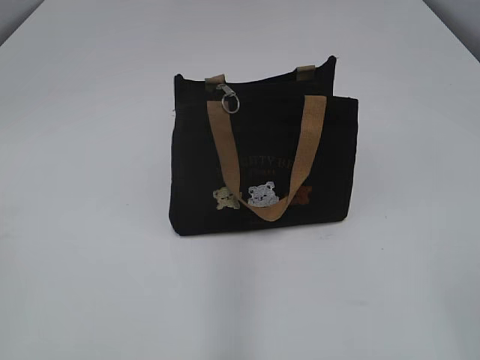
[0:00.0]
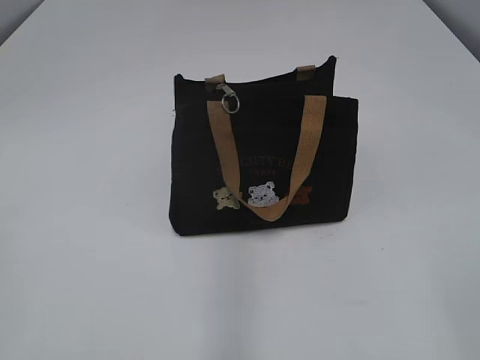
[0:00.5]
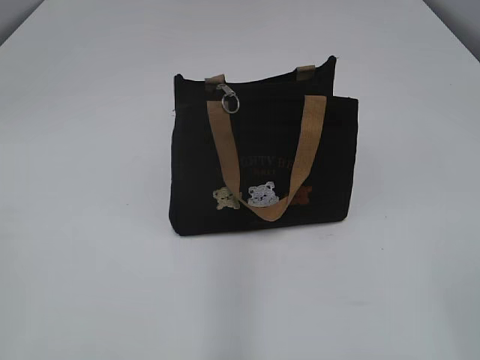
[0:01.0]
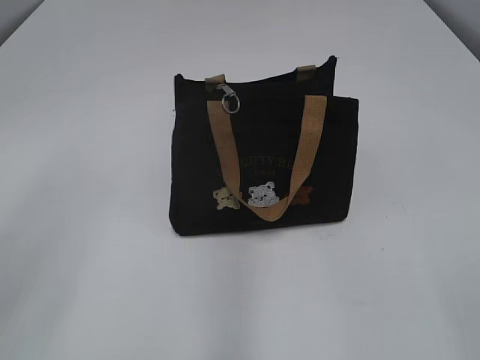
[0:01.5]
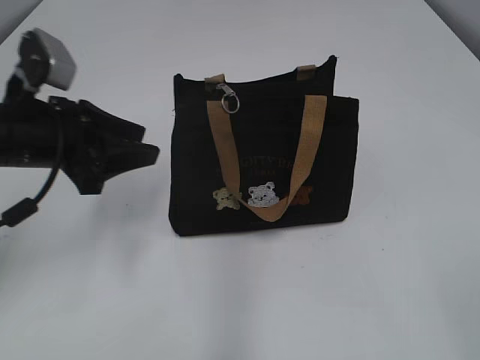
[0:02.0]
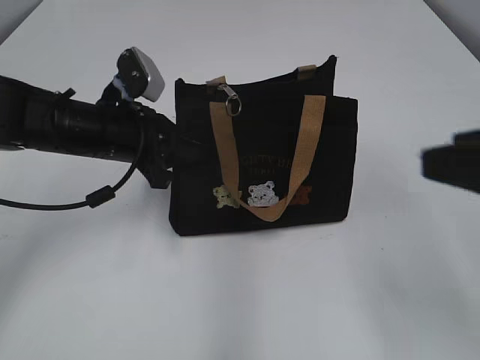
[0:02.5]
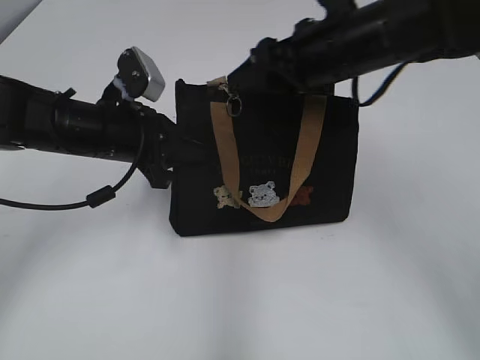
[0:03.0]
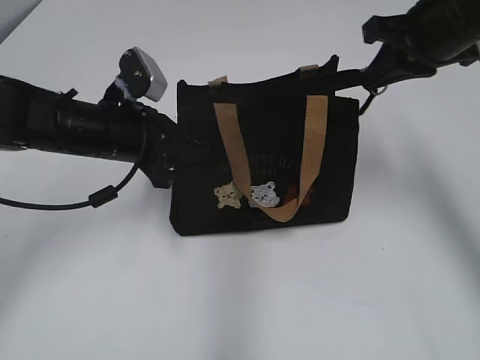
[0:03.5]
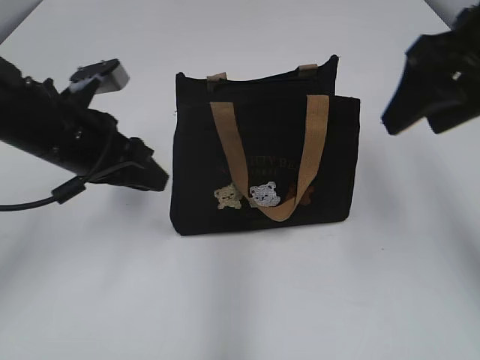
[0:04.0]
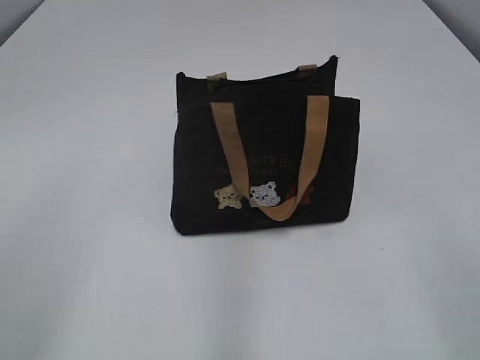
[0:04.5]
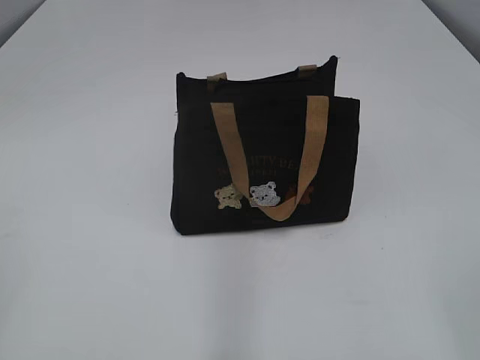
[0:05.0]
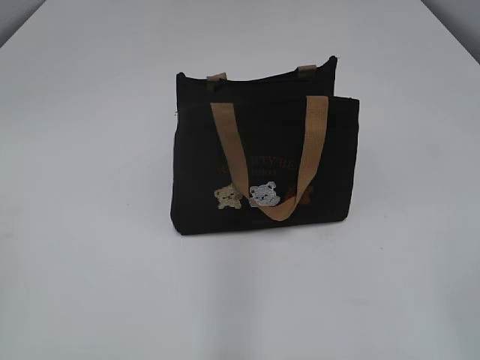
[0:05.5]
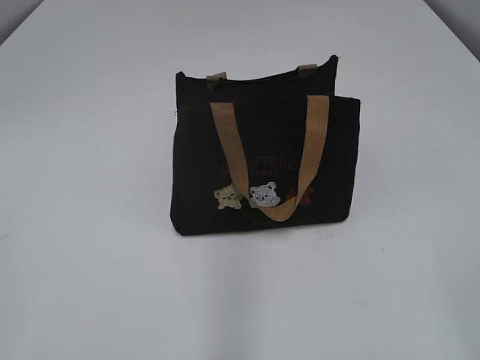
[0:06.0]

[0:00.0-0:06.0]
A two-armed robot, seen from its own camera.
Step, 0:00.0 to 0:03.5: Pull open the zipper with your right hand.
0:02.0 to 0:04.0: The left gripper travels to the right, forward and downward by some 15 cm, and closes and opens again. Meanwhile the right gripper goes about 35 cm forward, and closes and opens again.
0:04.0 to 0:06.0: The right gripper is displaced backward by about 35 cm; the left gripper heads backward and to the left, covering some 35 cm, and closes up.

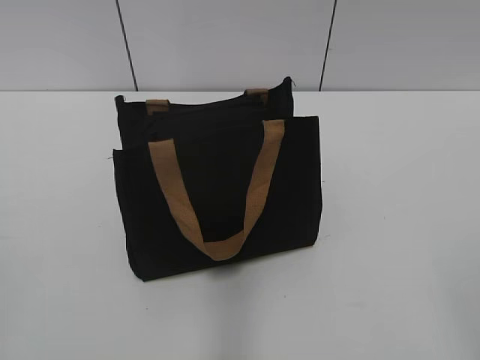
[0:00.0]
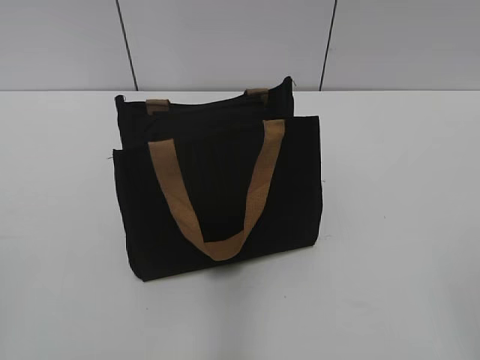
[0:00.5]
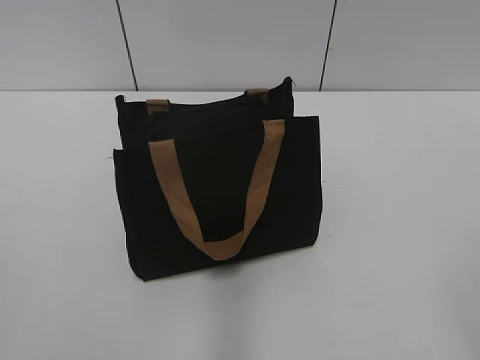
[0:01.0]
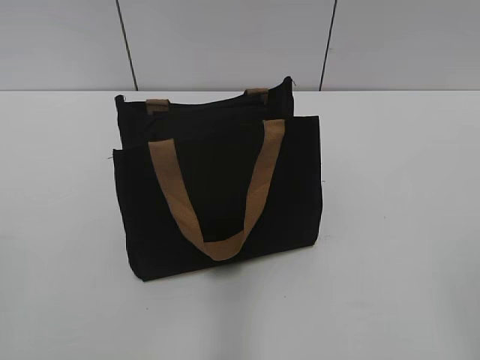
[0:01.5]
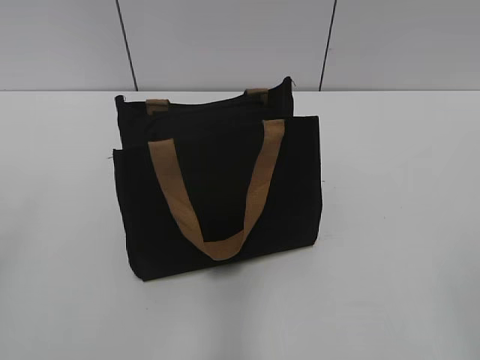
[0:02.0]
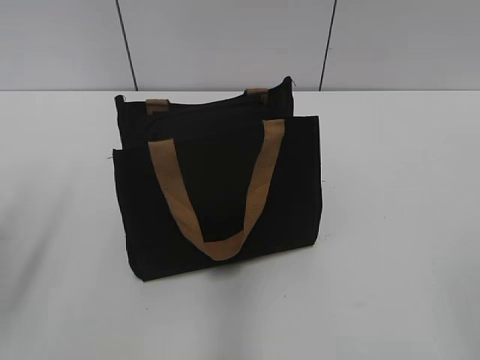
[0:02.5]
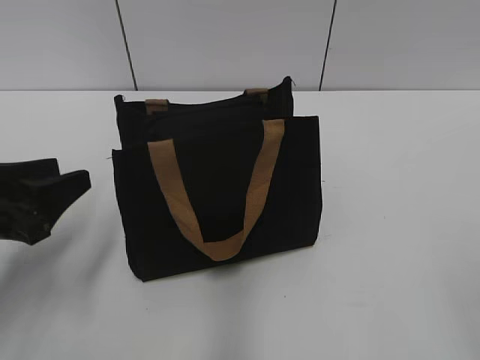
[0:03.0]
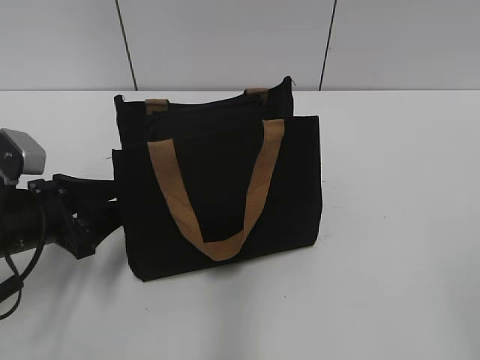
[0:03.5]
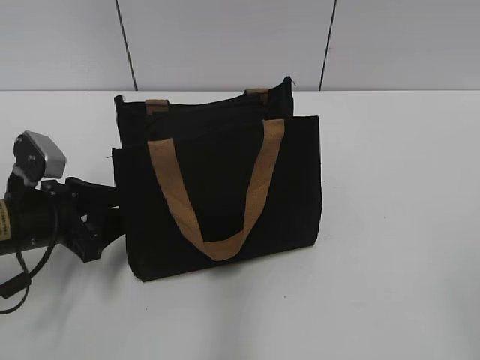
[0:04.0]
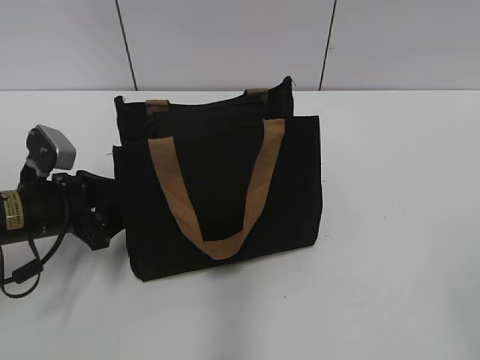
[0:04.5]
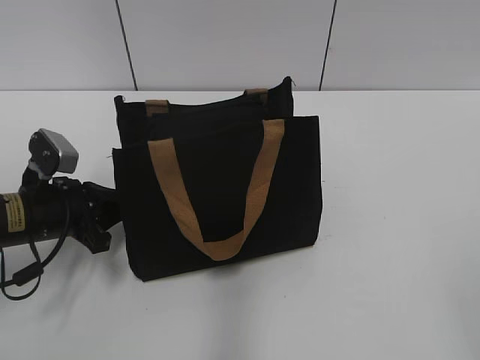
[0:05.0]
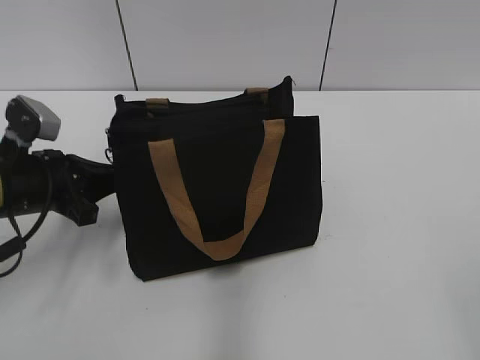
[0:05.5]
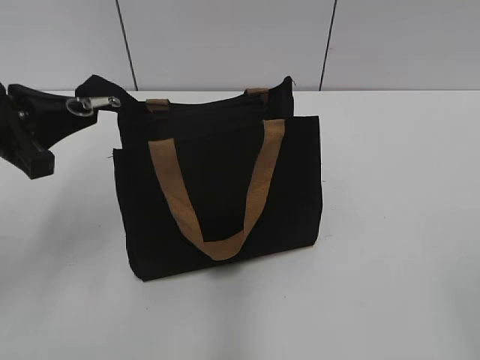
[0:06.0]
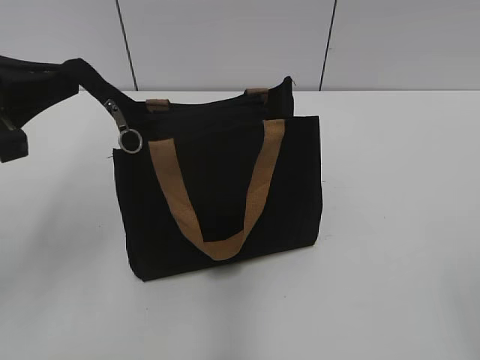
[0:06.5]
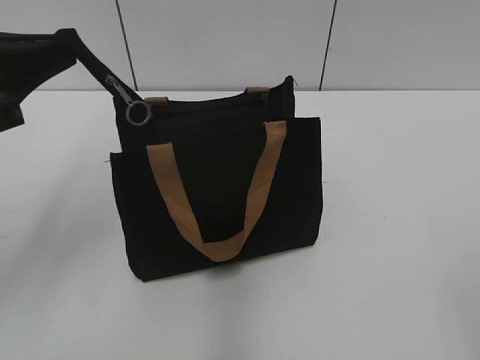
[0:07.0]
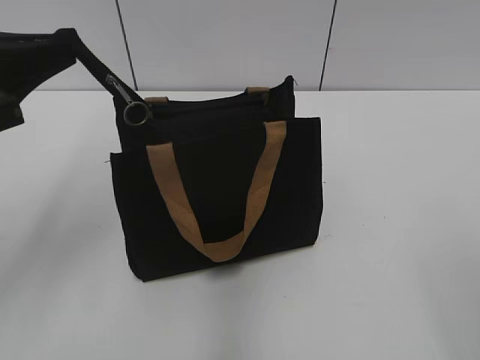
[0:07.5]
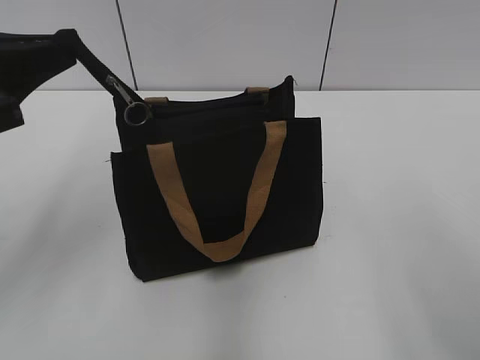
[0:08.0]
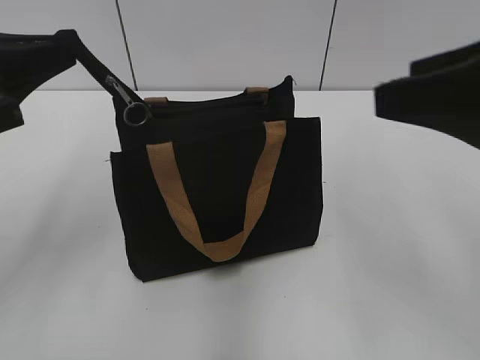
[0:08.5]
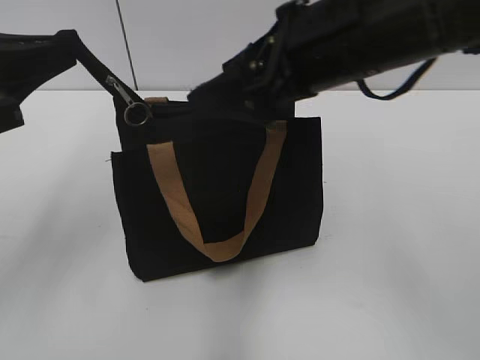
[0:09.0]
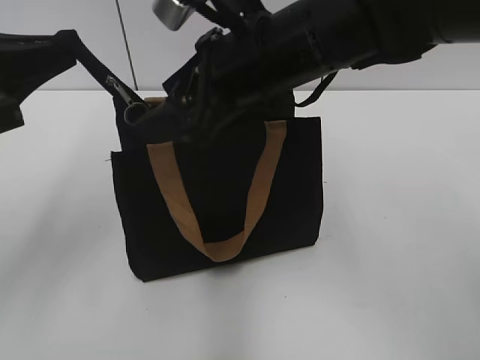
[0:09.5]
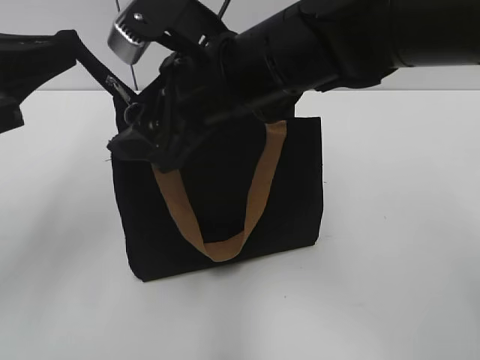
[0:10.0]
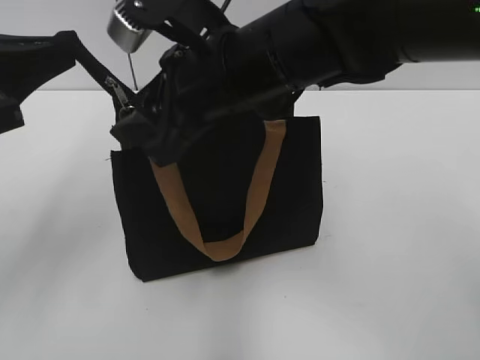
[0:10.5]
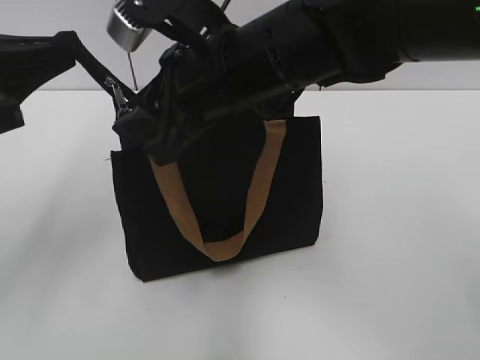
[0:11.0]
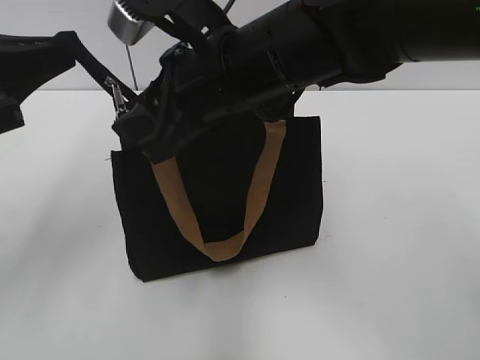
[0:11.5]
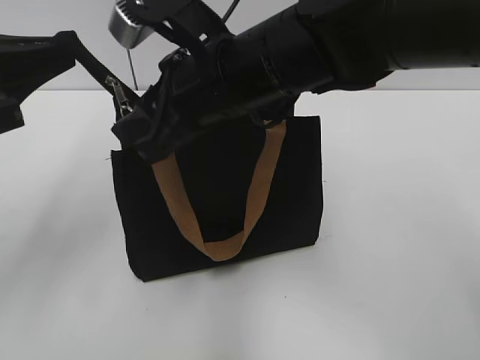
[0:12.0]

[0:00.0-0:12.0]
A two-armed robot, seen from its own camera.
0:02.0 to 0:04.0: The left gripper moves forward and downward, roughly 30 cm.
0:04.0 to 0:06.0: The left gripper heads upward, covering roughly 10 cm, and closes its fingers.
0:06.0 to 0:08.0: The right gripper ends up roughly 5 cm from where it was. The left gripper moves upward, some 10 cm.
0:08.0 to 0:10.0: The right gripper is displaced forward and to the left by about 35 cm.
0:10.0 to 0:12.0: The right gripper closes.

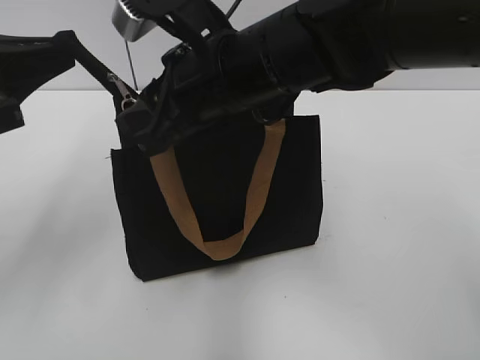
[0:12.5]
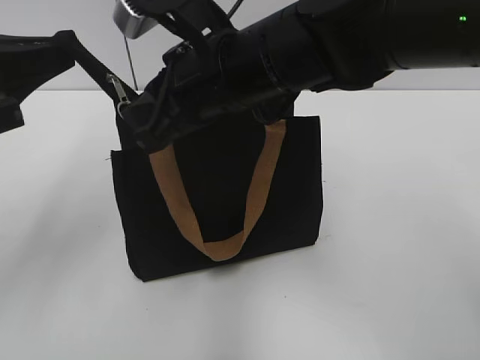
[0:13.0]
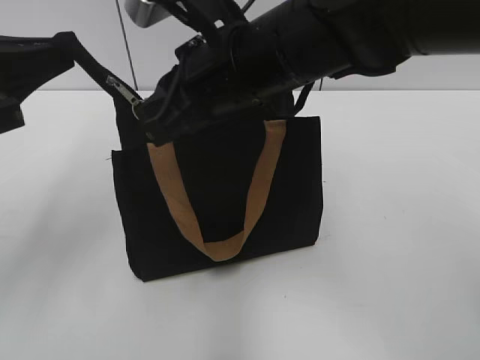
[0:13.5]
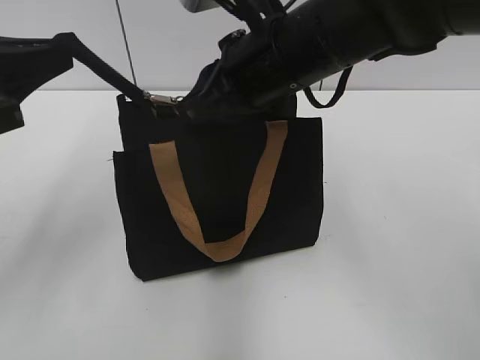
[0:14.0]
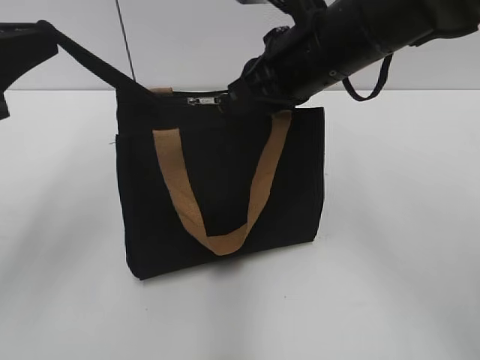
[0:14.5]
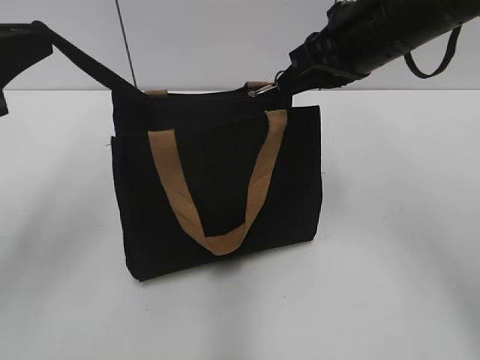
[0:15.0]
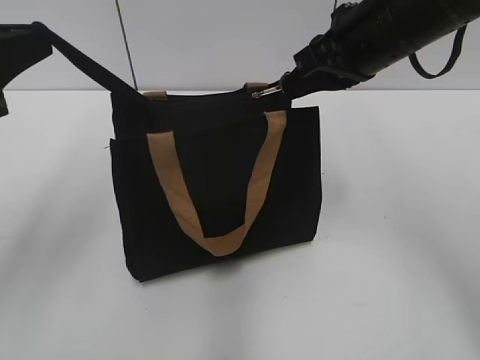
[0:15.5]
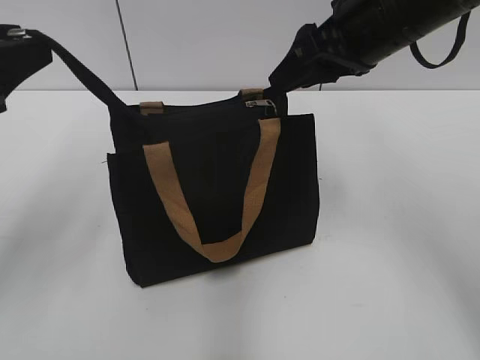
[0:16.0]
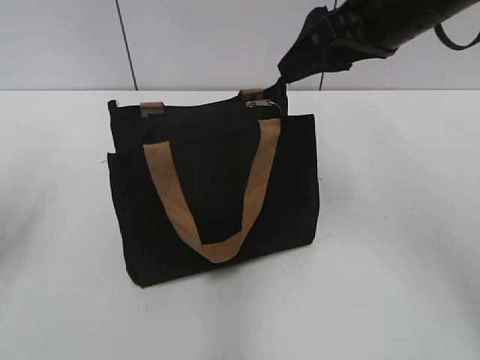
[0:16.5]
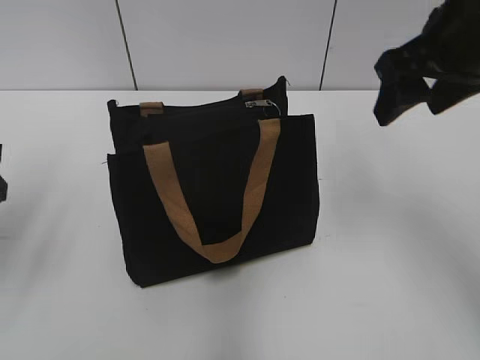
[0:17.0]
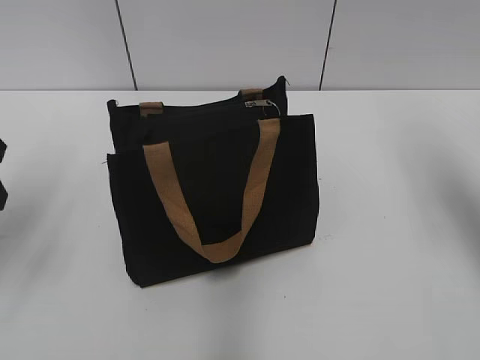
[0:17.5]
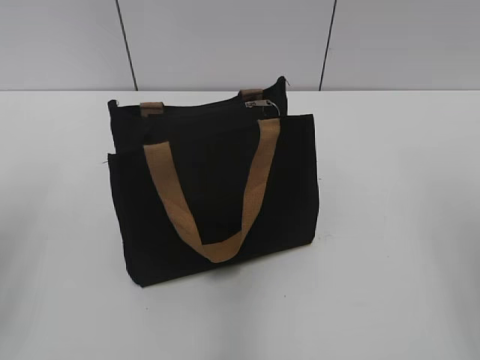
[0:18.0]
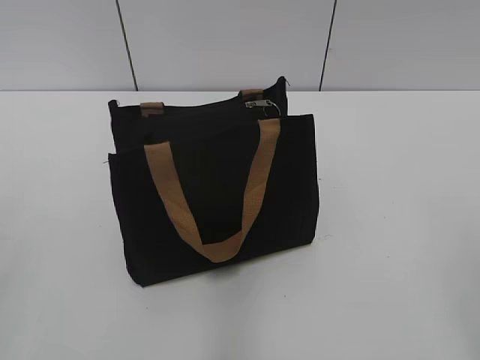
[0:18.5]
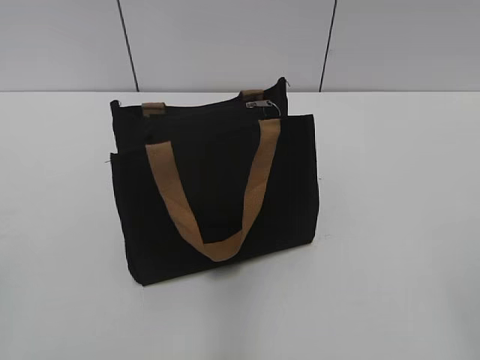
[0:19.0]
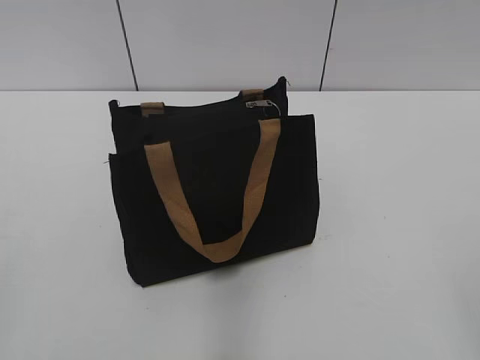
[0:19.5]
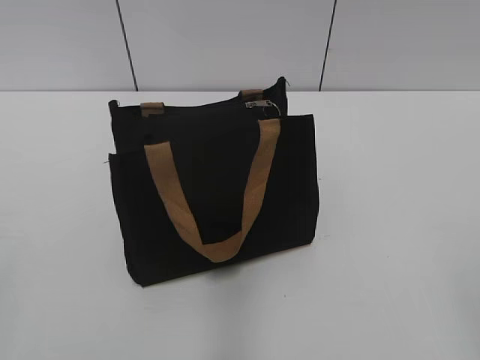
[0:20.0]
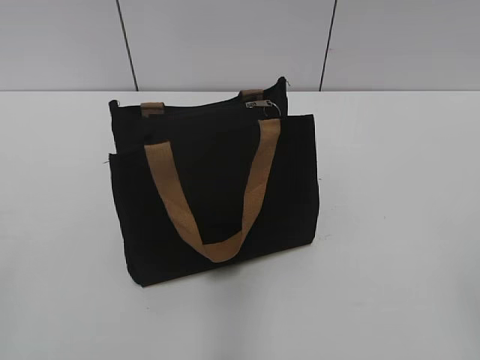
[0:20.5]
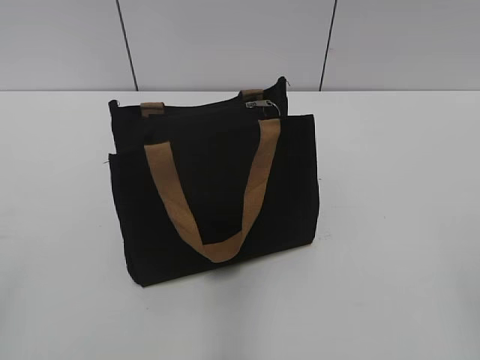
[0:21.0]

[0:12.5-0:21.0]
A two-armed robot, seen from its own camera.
Step, 0:12.5 to 0:16.0: Zip up the bag with your right hand.
0:12.5 to 0:14.5: The right gripper is displaced to the right by about 5 cm, and closes its fingers.
0:14.5 to 0:16.5: The left gripper moves roughly 5 cm, and opens up; the right gripper is displaced to the right by some 5 cm, and opens its fingers.
0:16.5 to 0:19.0: The right gripper heads backward, covering approximately 35 cm. Meanwhile the left gripper goes roughly 20 cm backward.
